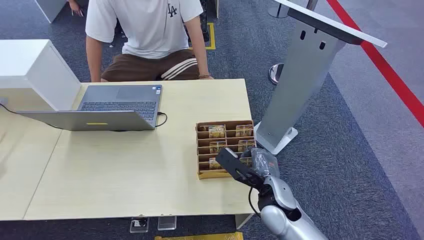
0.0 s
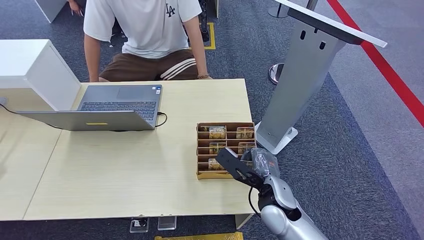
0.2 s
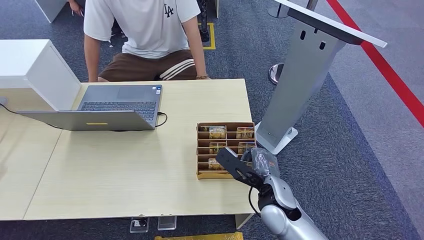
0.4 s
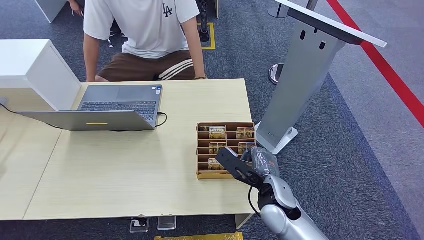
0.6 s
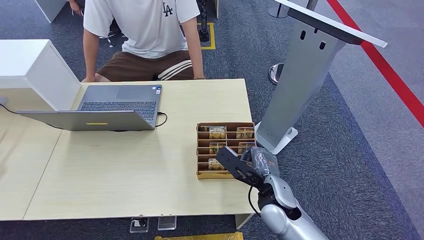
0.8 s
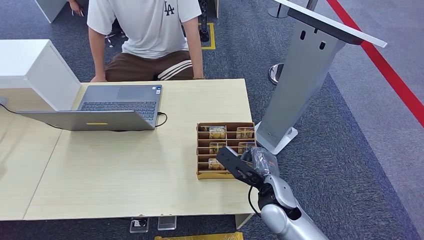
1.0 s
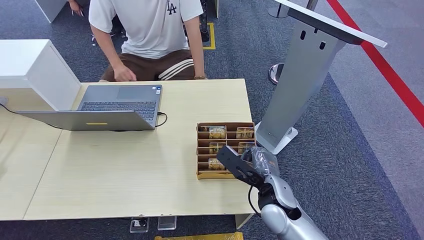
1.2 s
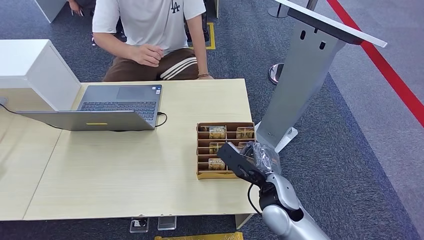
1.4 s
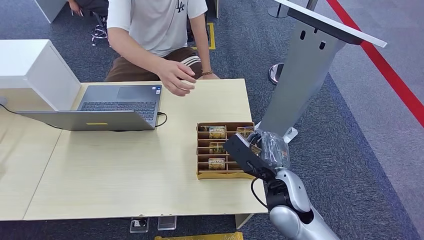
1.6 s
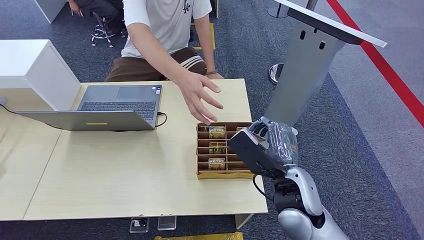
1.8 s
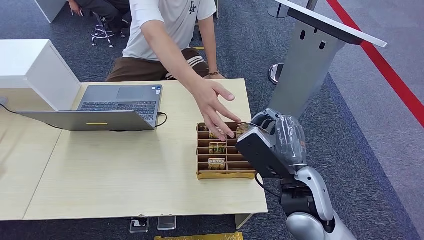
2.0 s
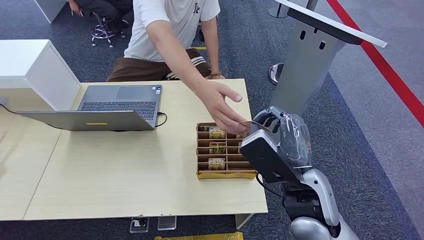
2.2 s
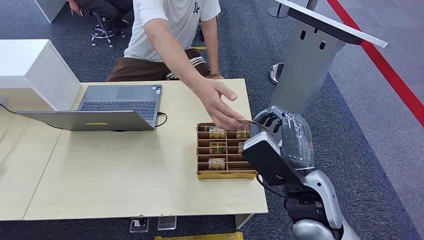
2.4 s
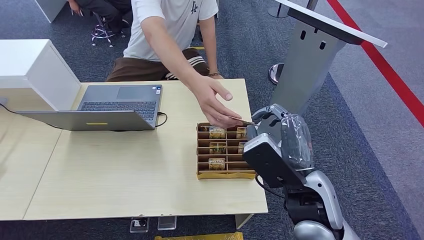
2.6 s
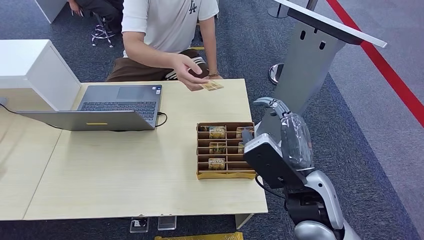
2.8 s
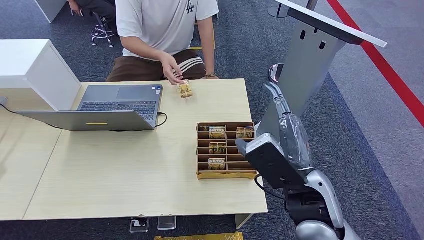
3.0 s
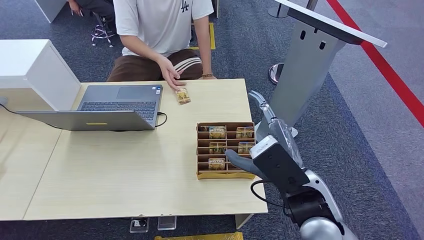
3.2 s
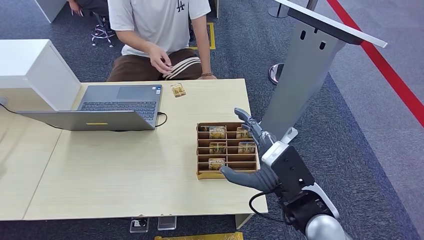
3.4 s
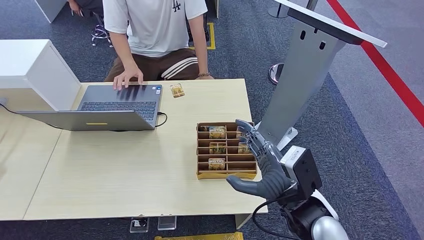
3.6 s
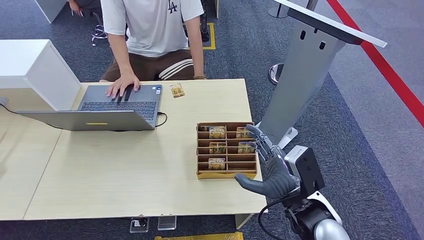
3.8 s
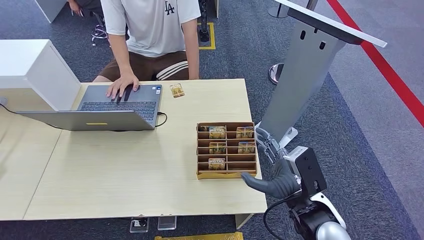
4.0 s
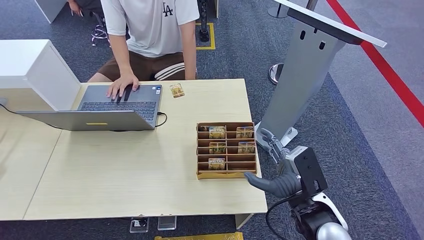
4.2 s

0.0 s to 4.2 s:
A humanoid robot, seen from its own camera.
Step, 0.0 to 1.6 s: Pick up the key card from the card box.
Step, 1.8 to 4.2 s: Hand the key card to the target.
1.4 to 2.8 s: The right hand travels upward by roughly 15 cm.
2.8 to 4.2 s: The right hand is displaced downward and to the right by about 10 cm.
